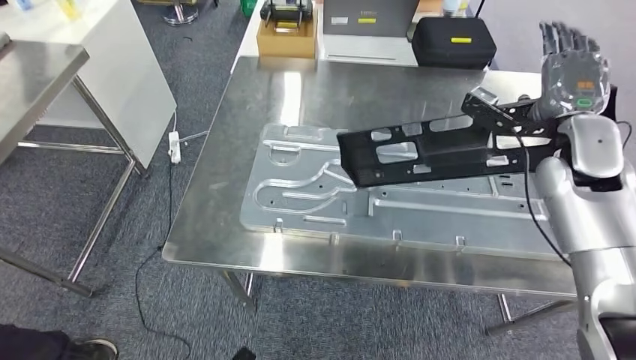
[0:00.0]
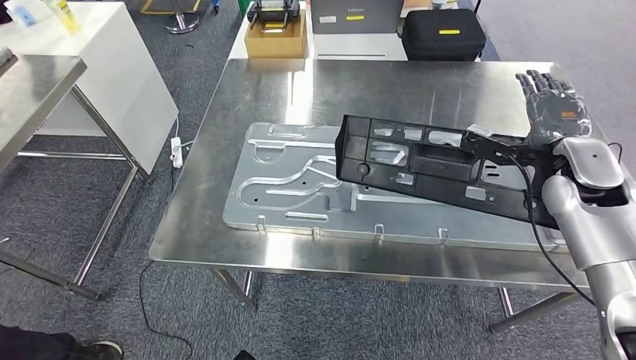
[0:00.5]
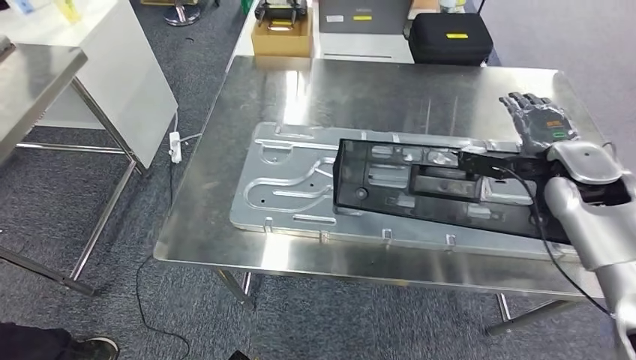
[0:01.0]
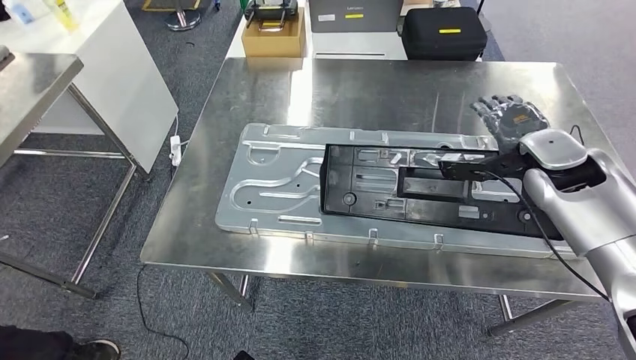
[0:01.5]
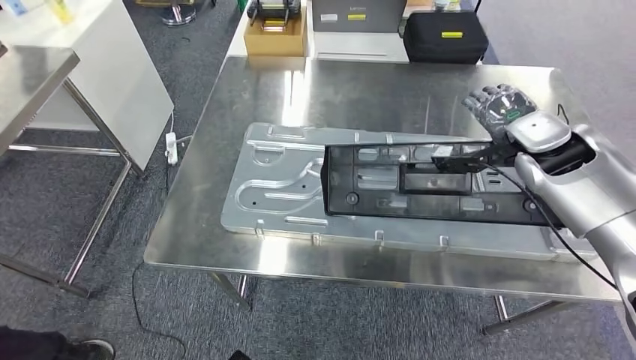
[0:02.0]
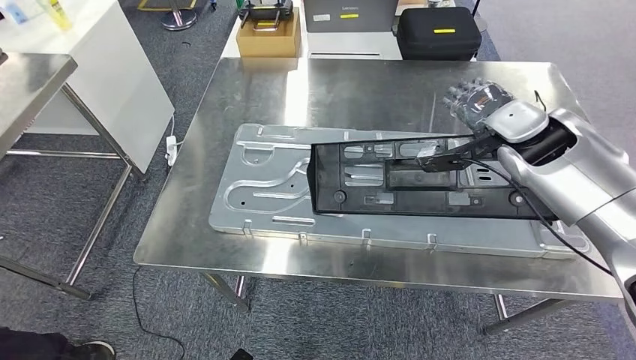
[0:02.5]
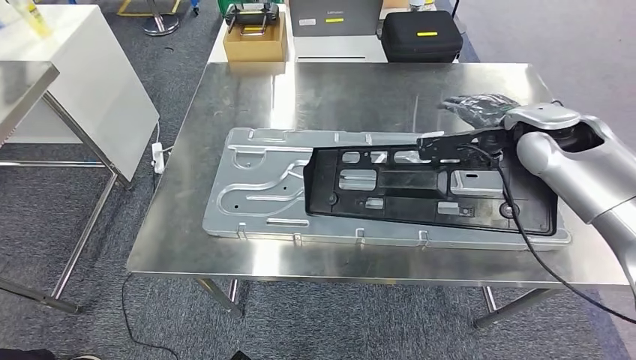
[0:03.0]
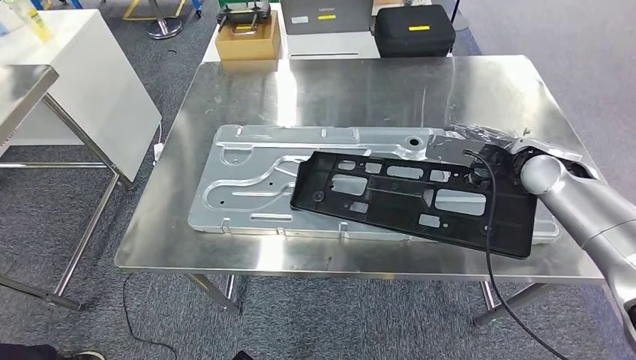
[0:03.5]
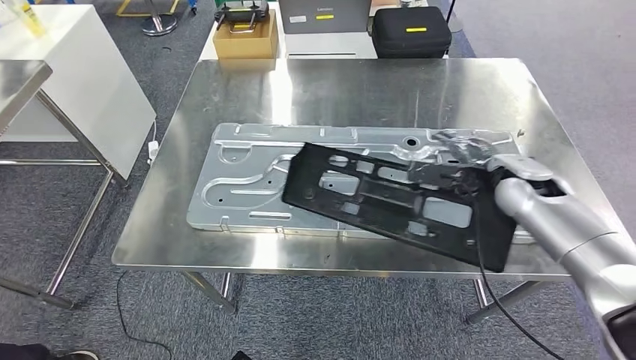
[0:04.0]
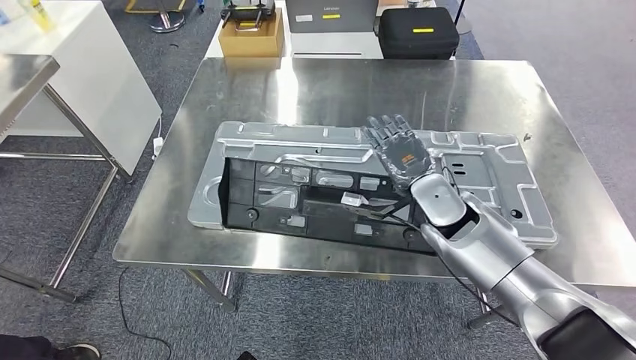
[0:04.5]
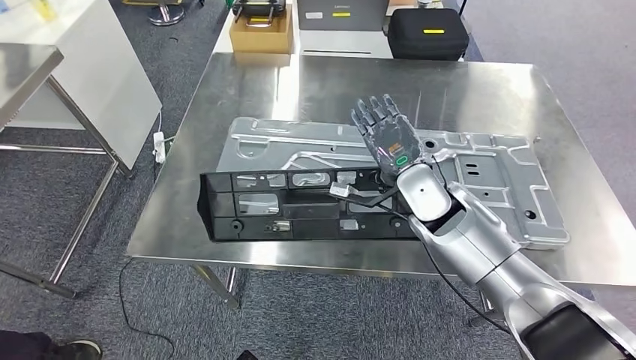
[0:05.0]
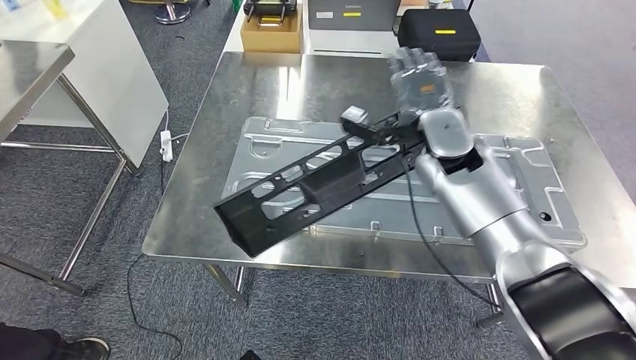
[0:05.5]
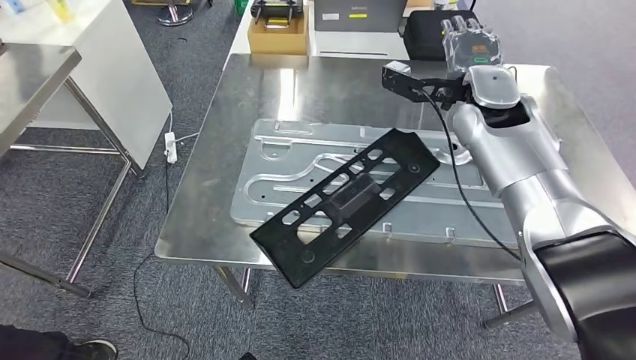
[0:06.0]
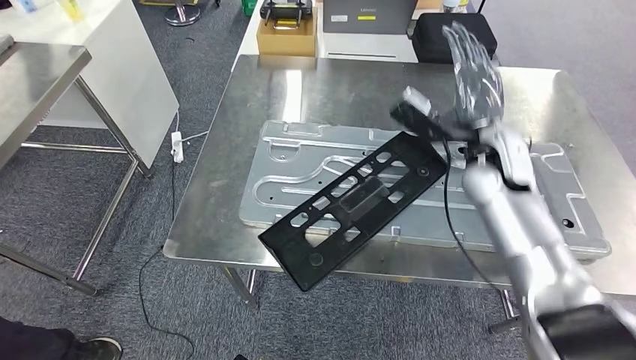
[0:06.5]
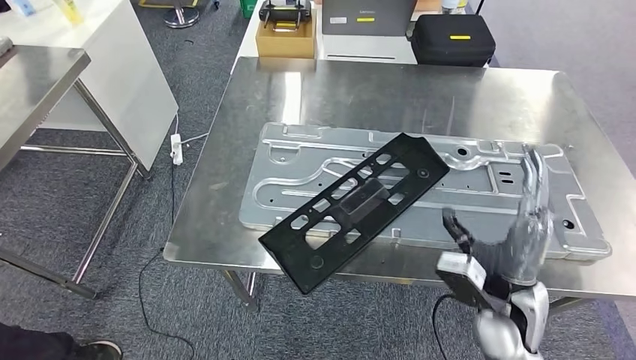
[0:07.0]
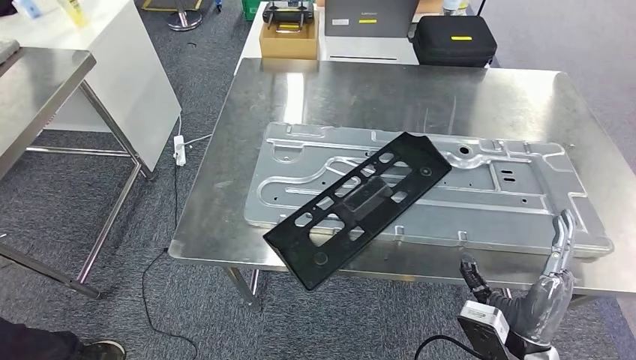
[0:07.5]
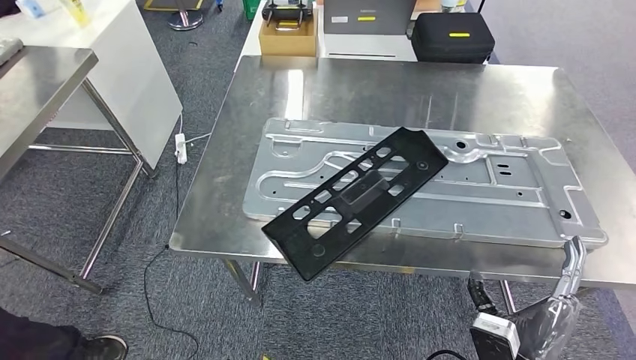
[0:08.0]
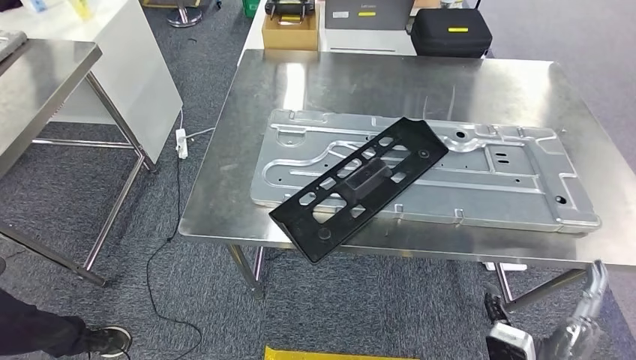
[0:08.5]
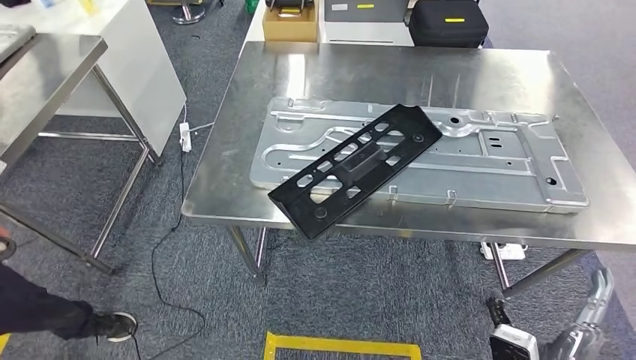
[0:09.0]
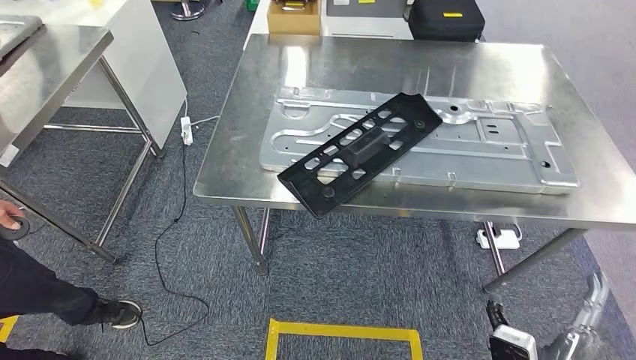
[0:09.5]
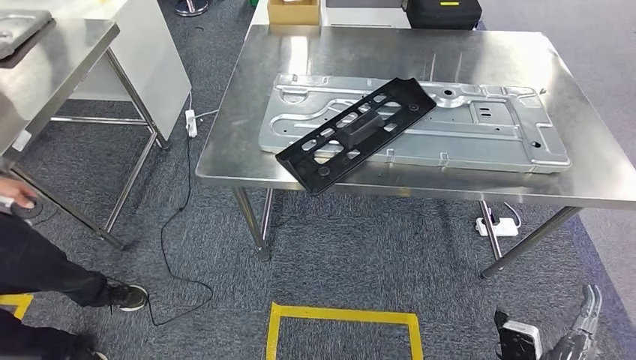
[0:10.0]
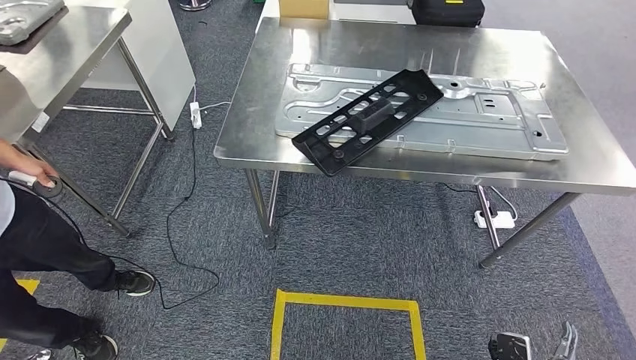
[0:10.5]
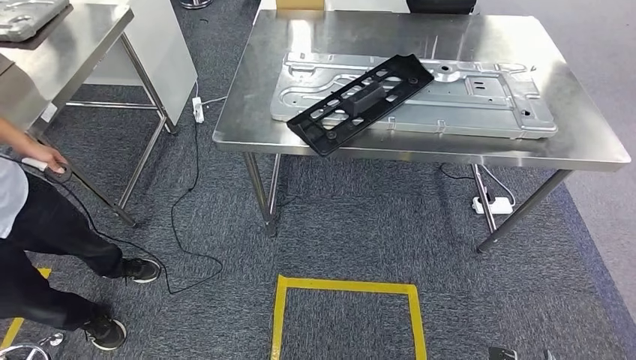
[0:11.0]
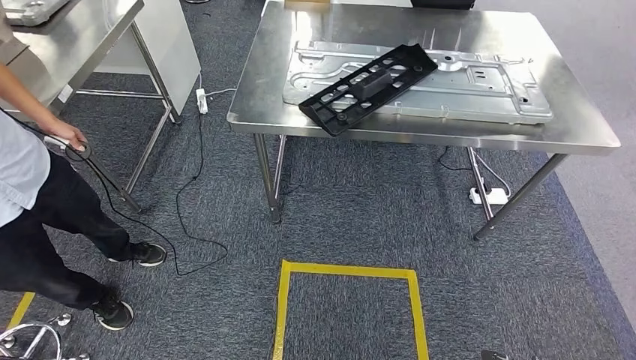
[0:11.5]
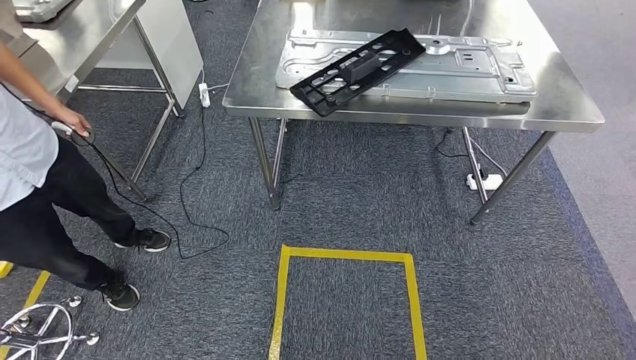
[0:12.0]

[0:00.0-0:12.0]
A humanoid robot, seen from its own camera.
Step, 0:00.0 to 0:08.5: Insert the large material into the corresponding hole on the workbench.

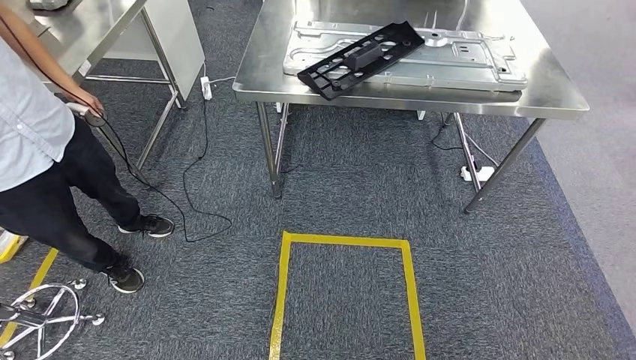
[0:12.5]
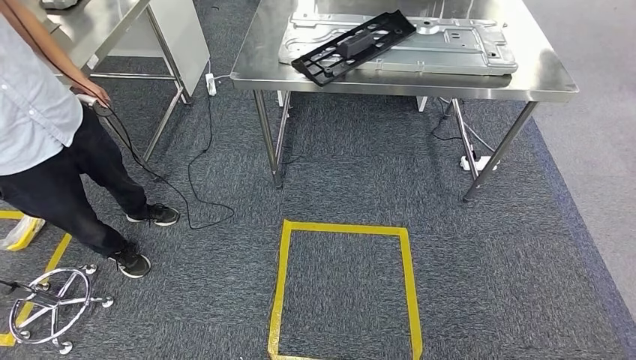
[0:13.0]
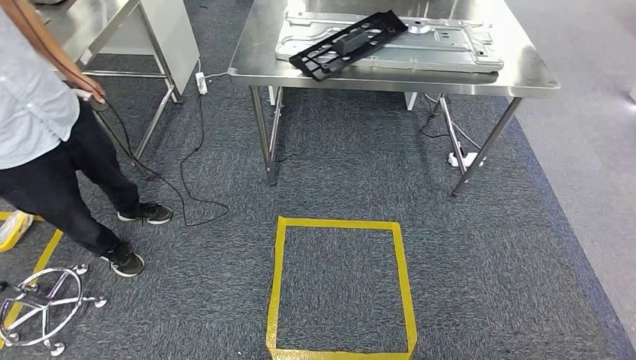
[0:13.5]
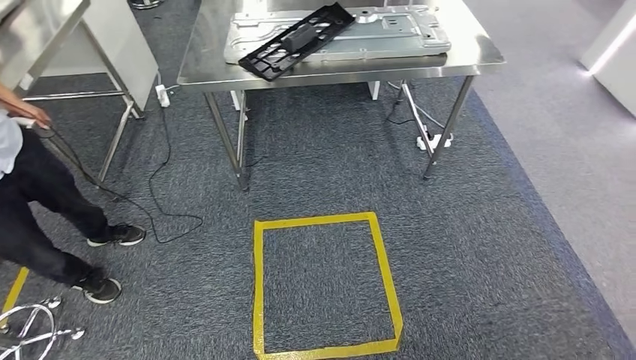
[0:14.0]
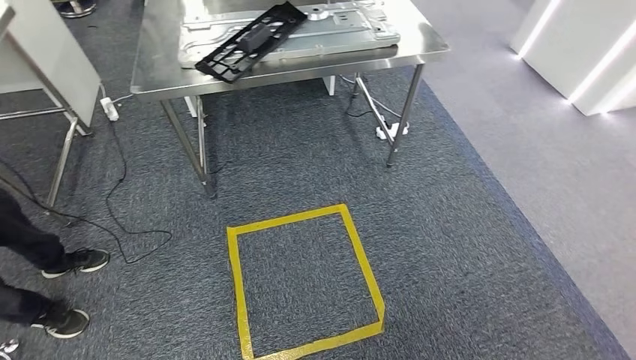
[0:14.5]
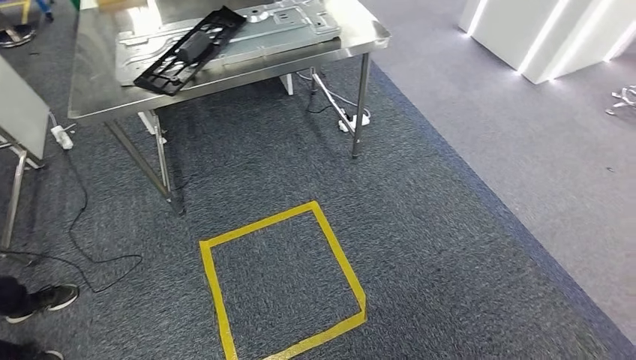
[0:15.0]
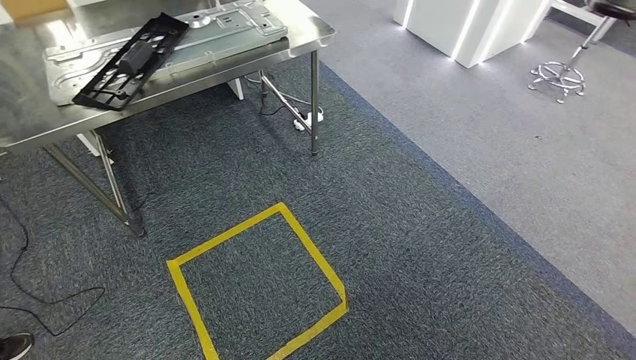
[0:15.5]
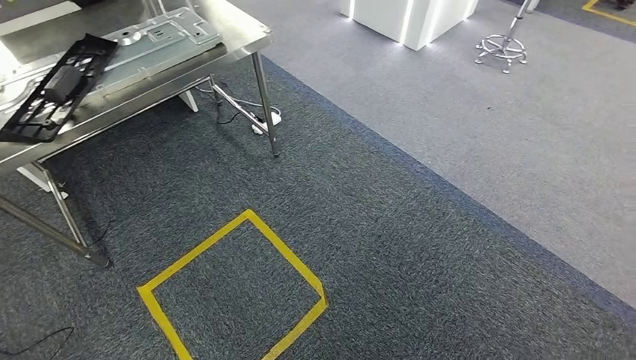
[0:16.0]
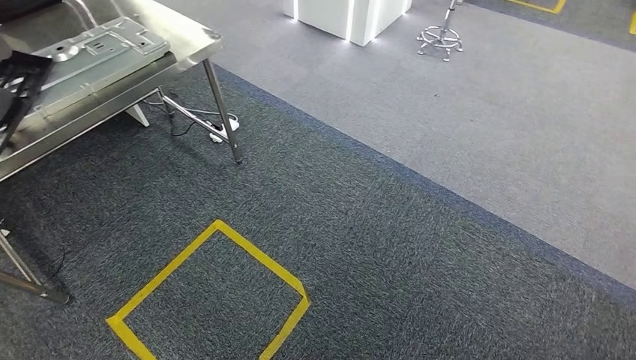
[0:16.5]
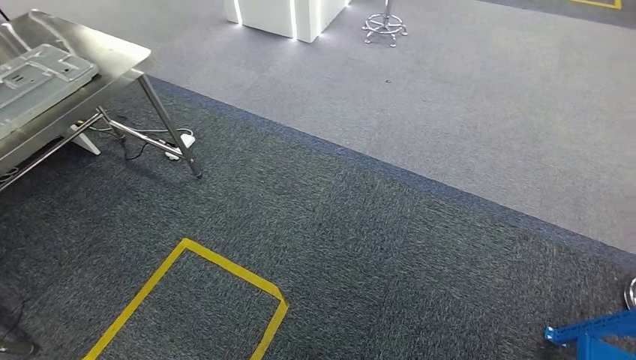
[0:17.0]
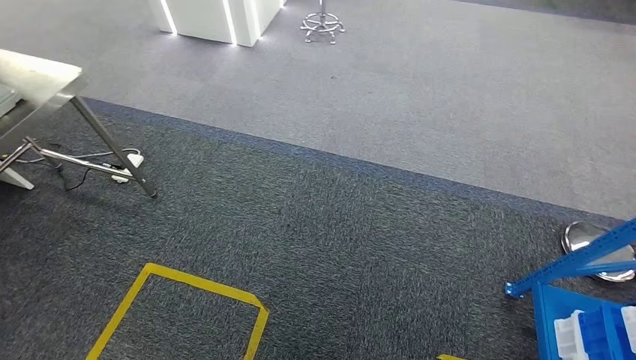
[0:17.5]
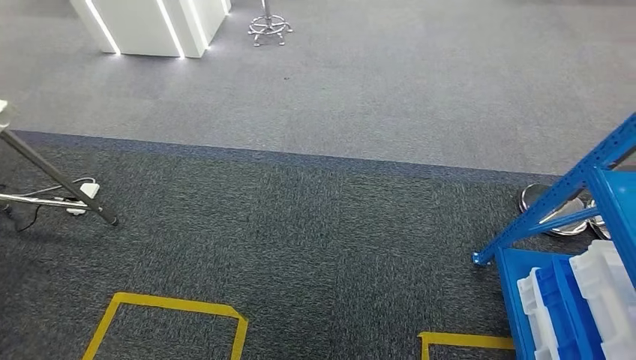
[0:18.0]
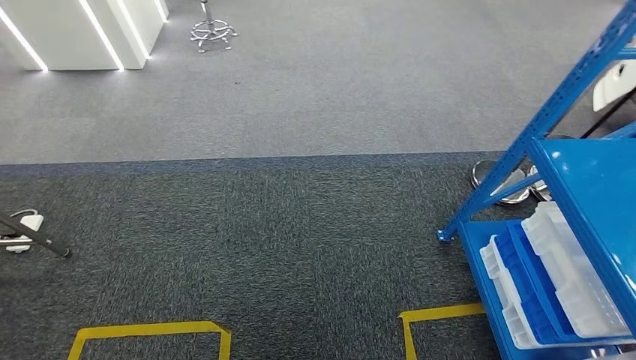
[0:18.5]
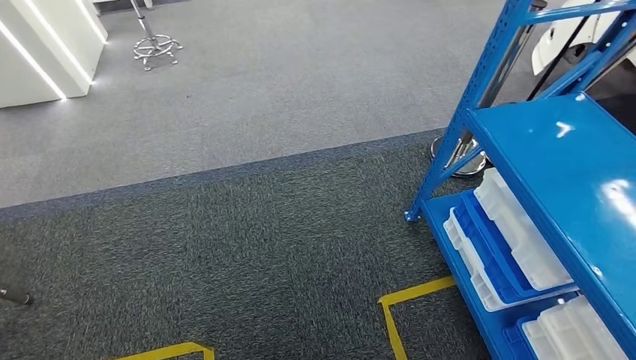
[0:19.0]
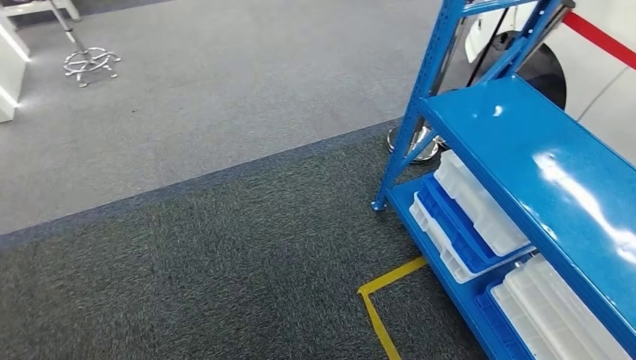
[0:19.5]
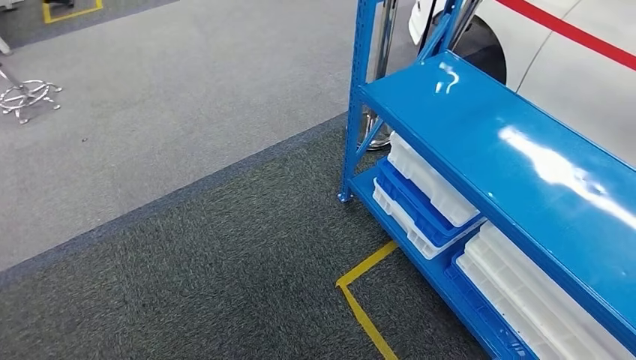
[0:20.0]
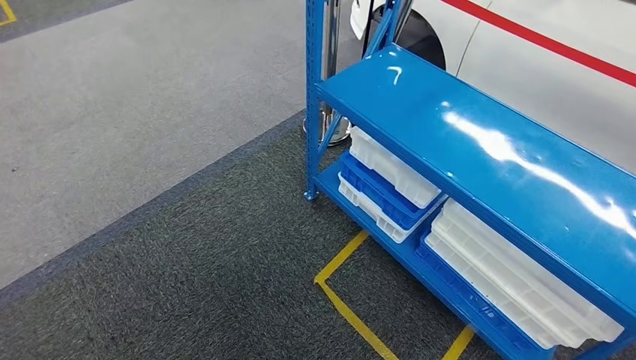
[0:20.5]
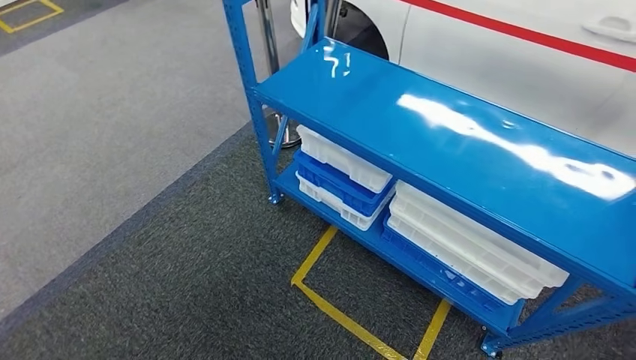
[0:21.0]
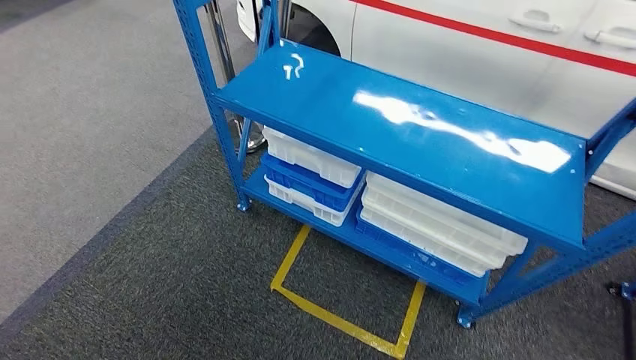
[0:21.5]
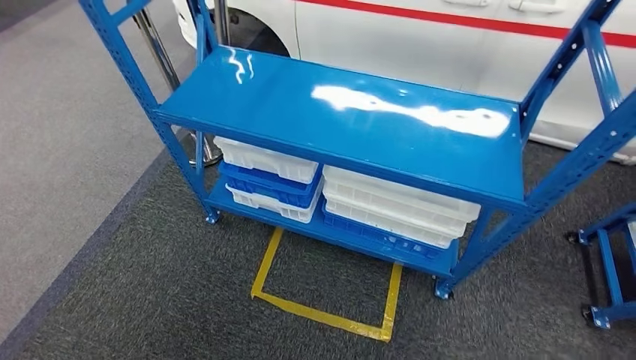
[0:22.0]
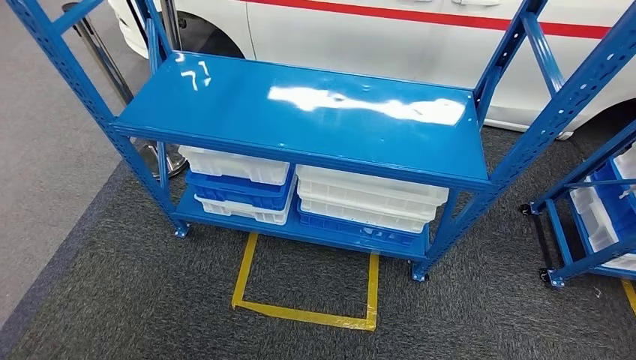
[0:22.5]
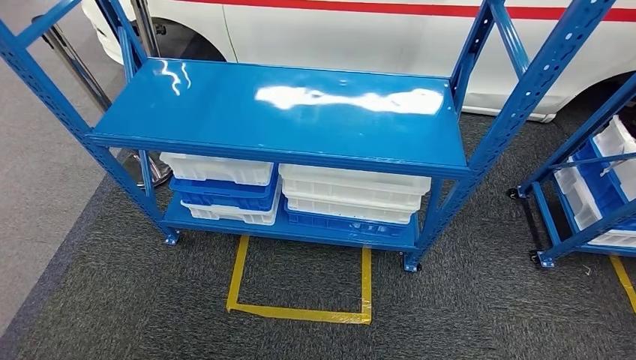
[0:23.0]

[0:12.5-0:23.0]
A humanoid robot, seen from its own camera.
Step, 0:12.5 to 0:23.0: Move to the initial position of the shelf.
